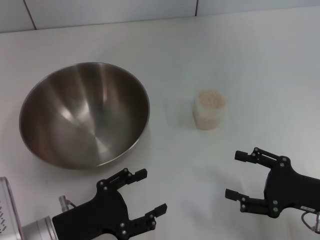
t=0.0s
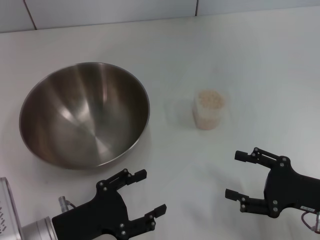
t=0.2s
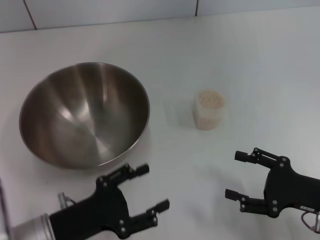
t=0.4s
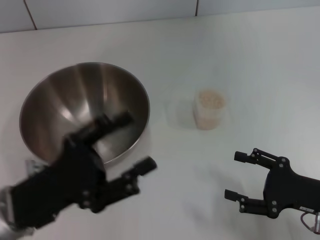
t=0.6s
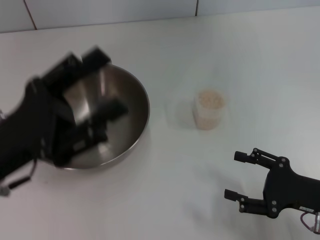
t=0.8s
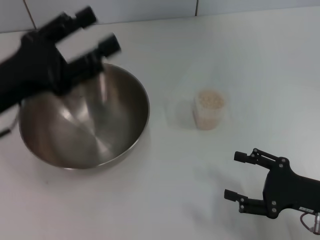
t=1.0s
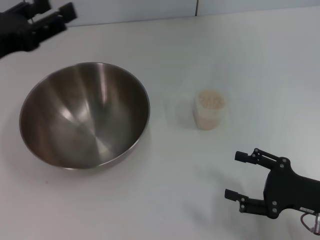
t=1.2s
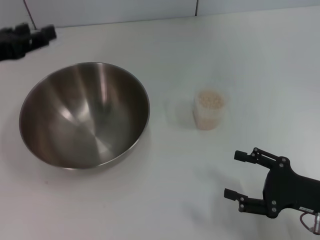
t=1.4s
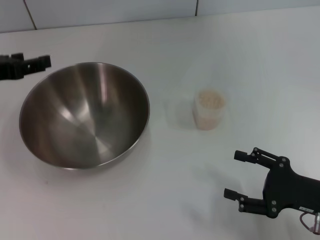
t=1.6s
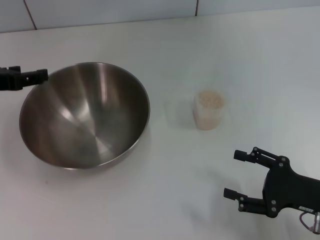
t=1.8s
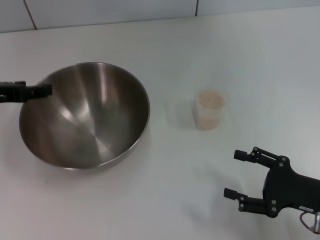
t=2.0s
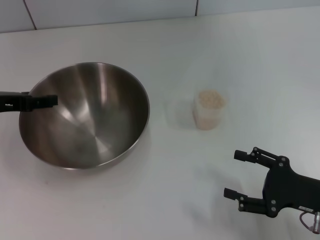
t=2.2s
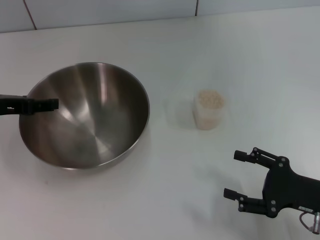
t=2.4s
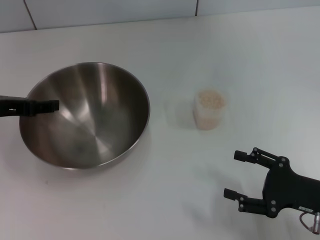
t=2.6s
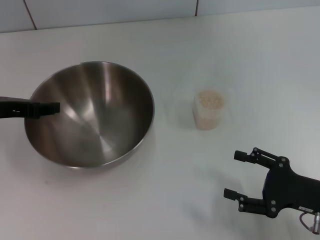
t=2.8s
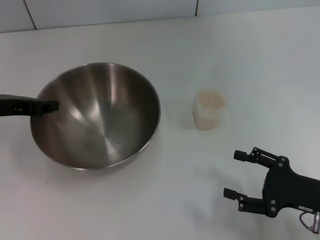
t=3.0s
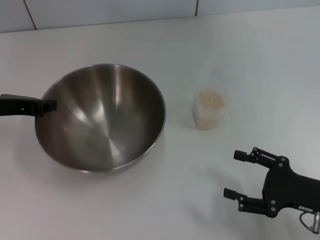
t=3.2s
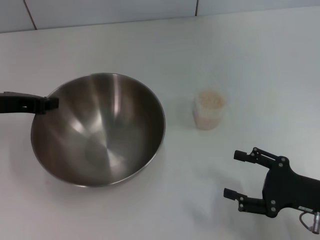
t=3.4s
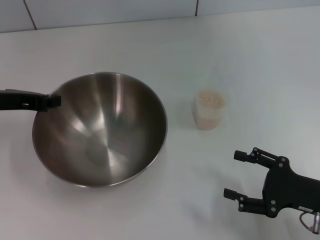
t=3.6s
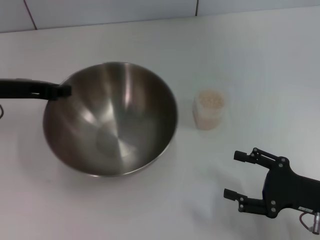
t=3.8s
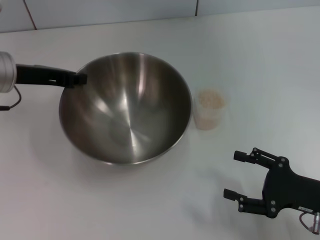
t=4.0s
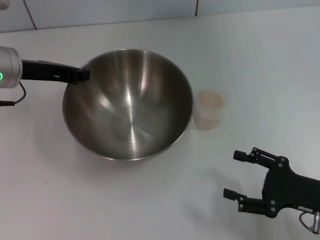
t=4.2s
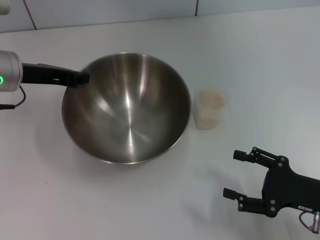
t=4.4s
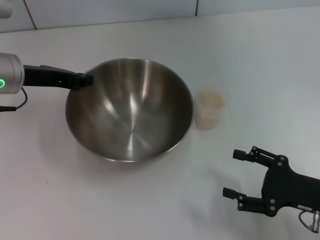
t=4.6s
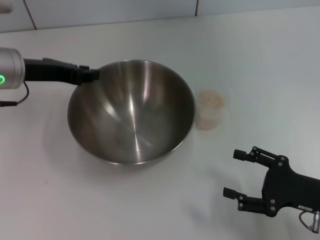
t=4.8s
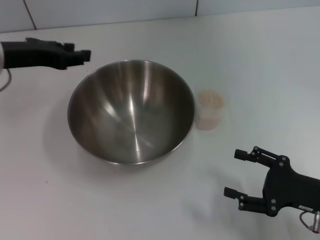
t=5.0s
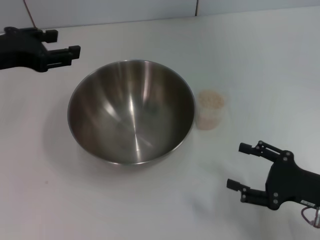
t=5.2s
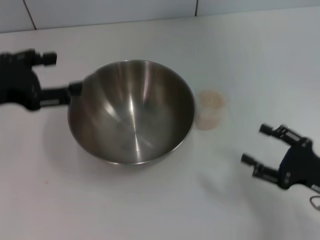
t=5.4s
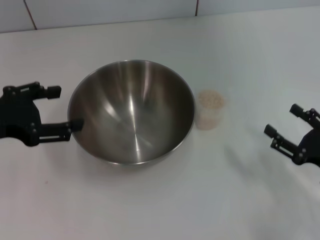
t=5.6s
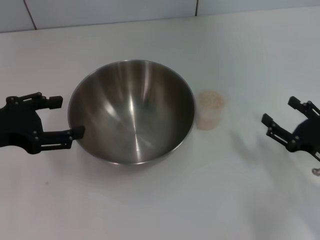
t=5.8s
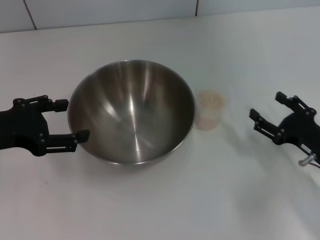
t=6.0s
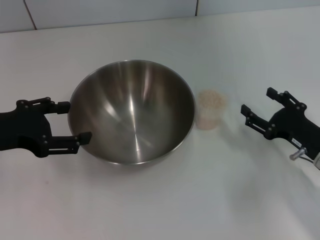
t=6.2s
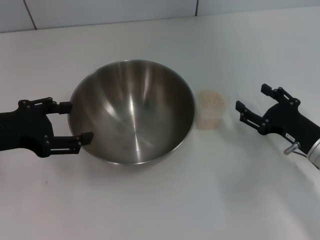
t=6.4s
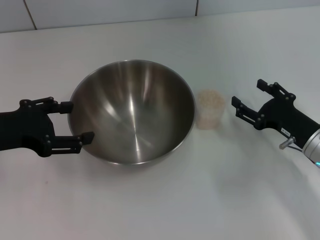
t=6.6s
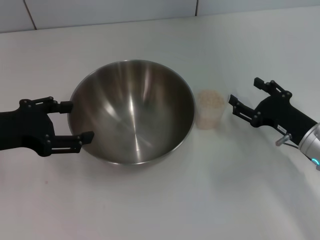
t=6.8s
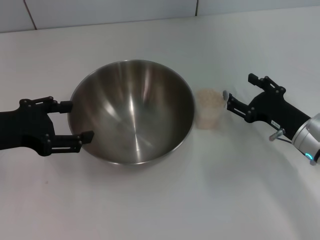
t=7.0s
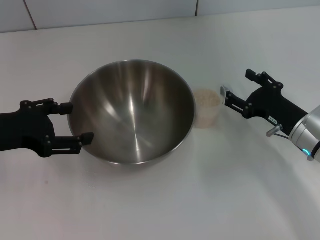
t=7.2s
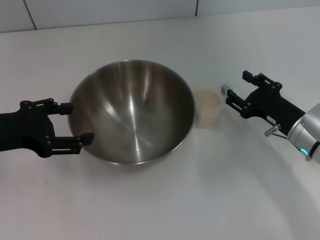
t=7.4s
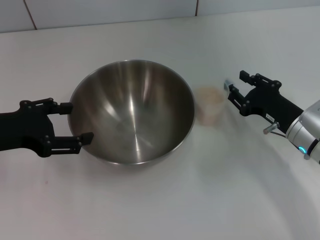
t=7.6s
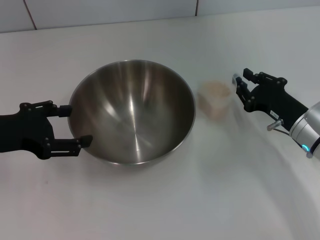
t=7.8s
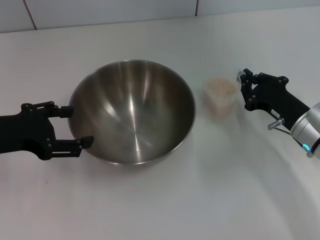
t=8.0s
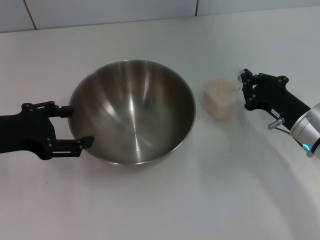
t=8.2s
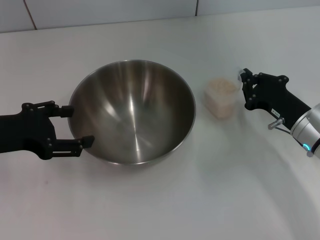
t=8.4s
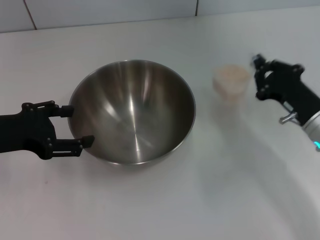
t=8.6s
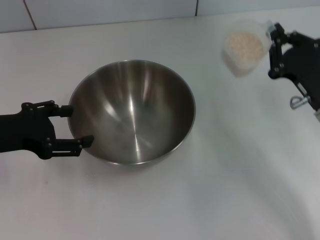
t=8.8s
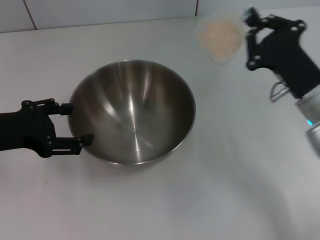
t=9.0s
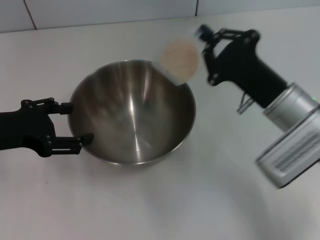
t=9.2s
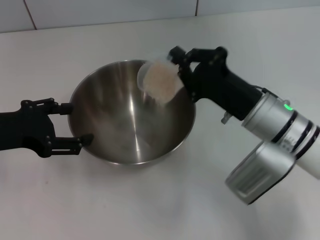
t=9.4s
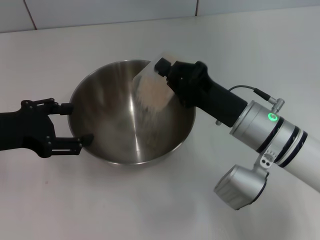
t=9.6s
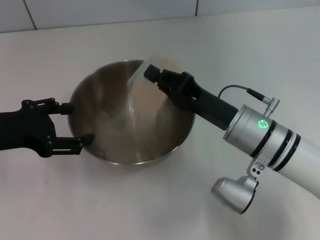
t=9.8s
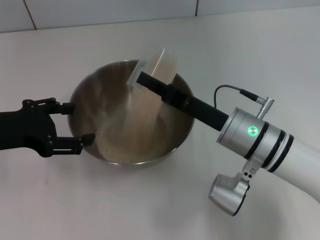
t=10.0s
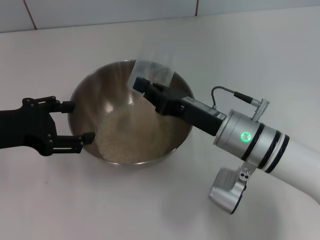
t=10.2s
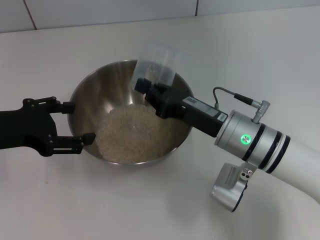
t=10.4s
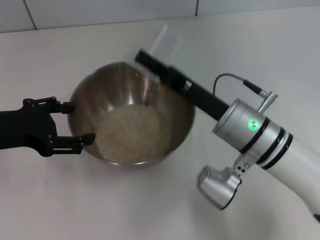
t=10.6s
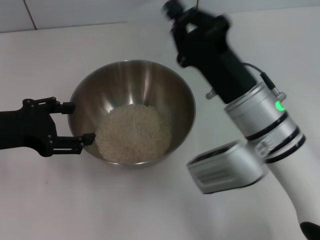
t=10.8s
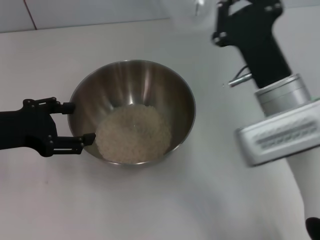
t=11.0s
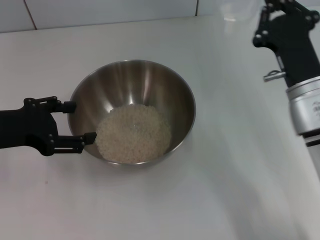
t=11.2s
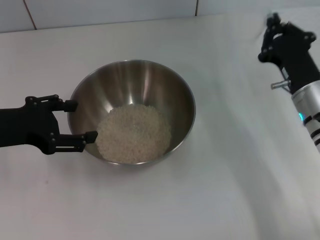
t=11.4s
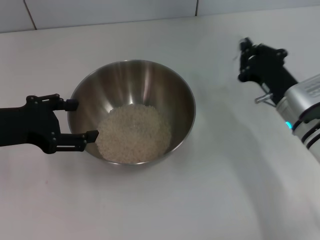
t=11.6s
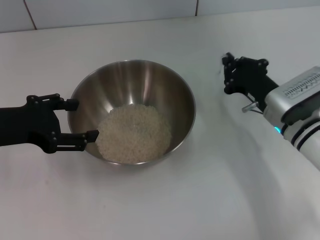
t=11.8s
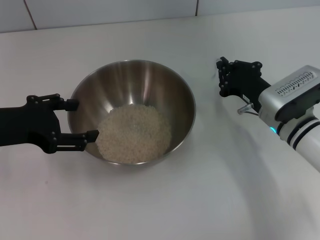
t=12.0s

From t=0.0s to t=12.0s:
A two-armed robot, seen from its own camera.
Task of the whole recording: Place the bowl in the middle of the table with one hand and pour the rice from the grain cup into it with the other hand.
Step, from t=0.0s to t=3.4s: Pick up the bowl with the left gripper.
Step, from t=3.8s to t=5.2s: Place the bowl in the center of view with the left gripper.
Step, from t=5.4s to t=8.6s: Pick up the cup with rice in it with the right gripper.
Step, from t=8.8s to t=10.8s: Pour the rice from the cup into the bowl with the right gripper.
From t=0.0s to t=1.6s: The left gripper goes some 25 cm upward, forward and to the left.
From t=1.6s to t=3.0s: The left gripper closes up.
From t=3.0s to t=4.4s: The left gripper changes place by approximately 5 cm, and closes its fingers.
From t=4.4s to t=6.0s: The left gripper is displaced backward by some 10 cm, and opens. Meanwhile the right gripper changes place by some 5 cm.
From t=6.0s to t=7.6s: The right gripper heads forward, covering some 5 cm.
From t=7.6s to t=9.0s: The right gripper is displaced upward by some 5 cm, and closes.
From t=9.0s to t=10.4s: The right gripper shifts some 10 cm to the left.
From t=10.4s to t=12.0s: The right gripper travels to the right by some 10 cm.

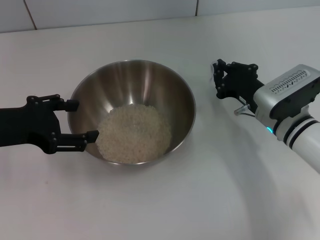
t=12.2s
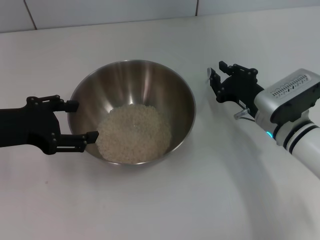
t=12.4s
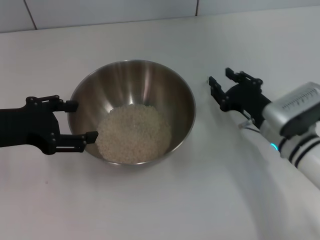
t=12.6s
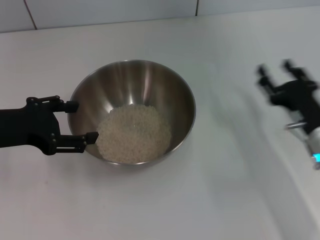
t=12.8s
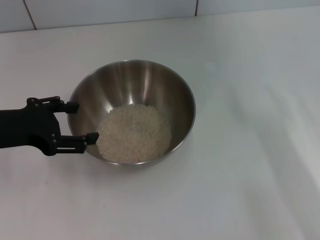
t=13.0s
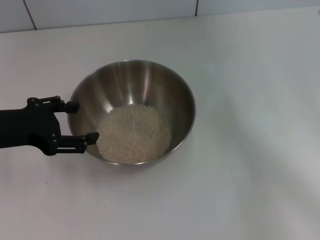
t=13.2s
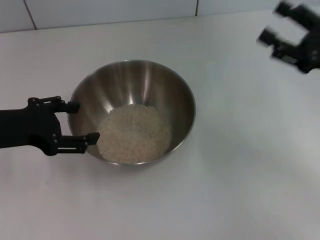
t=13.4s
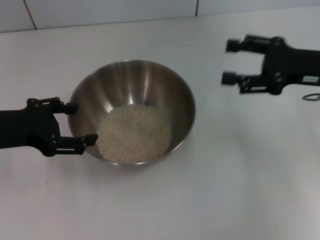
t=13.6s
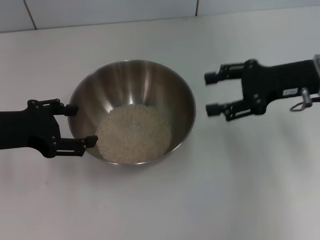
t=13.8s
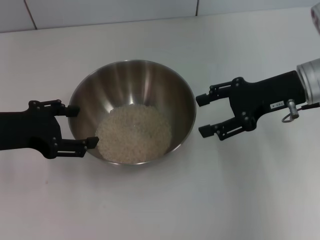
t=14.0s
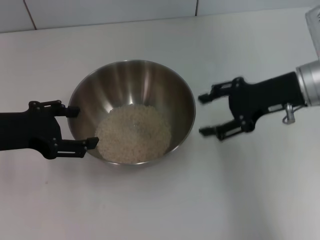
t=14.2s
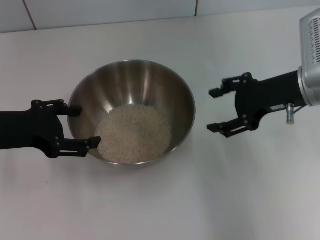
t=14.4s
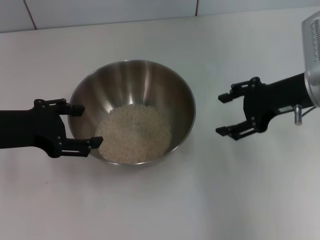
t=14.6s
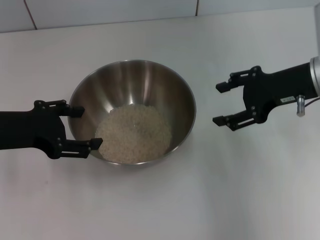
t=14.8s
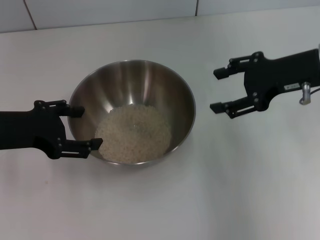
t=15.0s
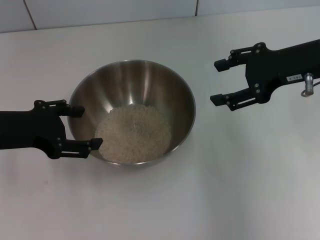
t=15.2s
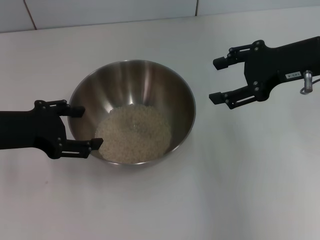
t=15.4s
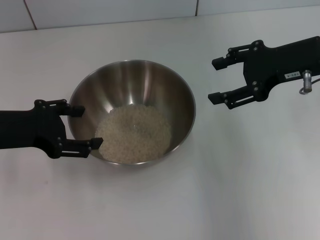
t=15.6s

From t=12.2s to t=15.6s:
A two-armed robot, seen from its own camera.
Task of the whole recording: Place the bowl in the middle of the table with one hand and pour the rice from the grain cup into it with the other hand.
From t=12.2s to t=13.8s: The right gripper heads upward and to the right, covering approximately 15 cm, and opens up.
From t=13.8s to t=15.6s: The right gripper travels upward by some 5 cm.

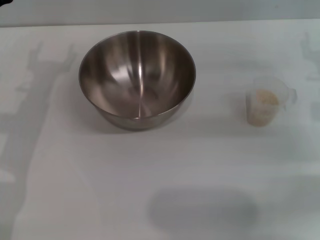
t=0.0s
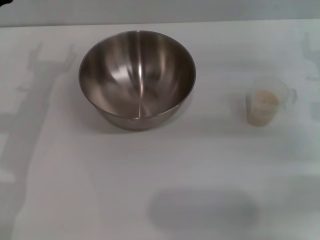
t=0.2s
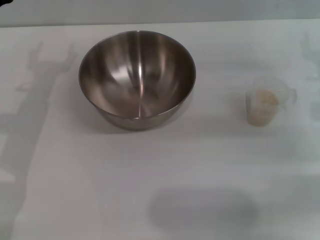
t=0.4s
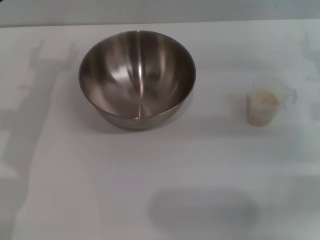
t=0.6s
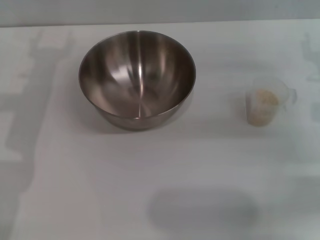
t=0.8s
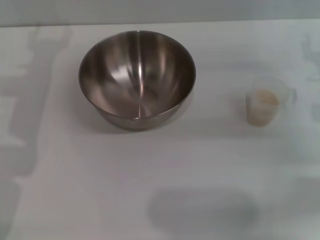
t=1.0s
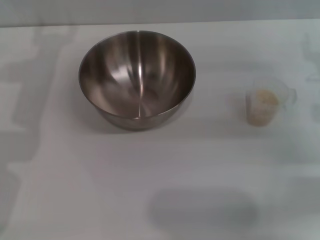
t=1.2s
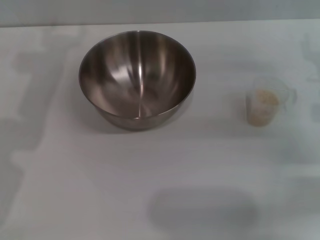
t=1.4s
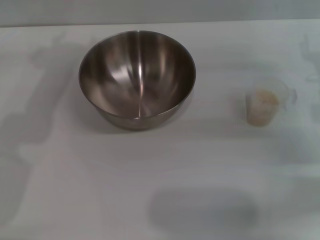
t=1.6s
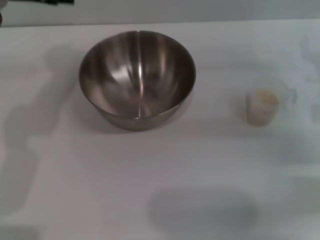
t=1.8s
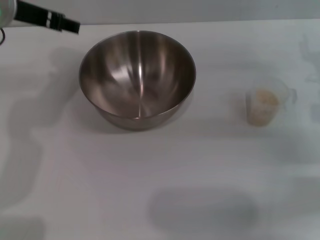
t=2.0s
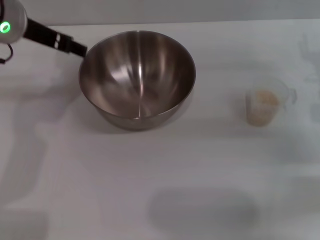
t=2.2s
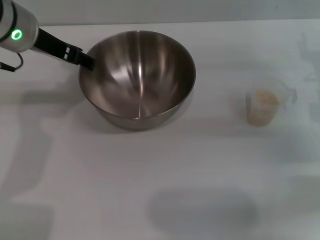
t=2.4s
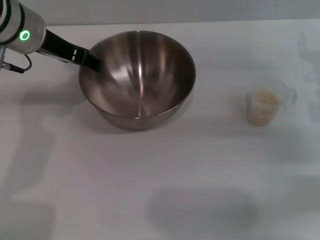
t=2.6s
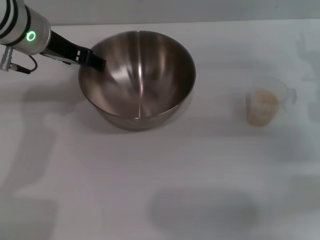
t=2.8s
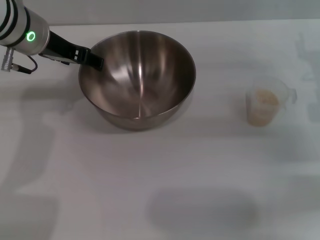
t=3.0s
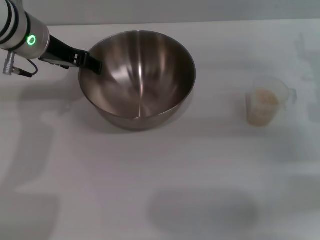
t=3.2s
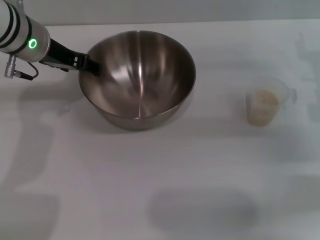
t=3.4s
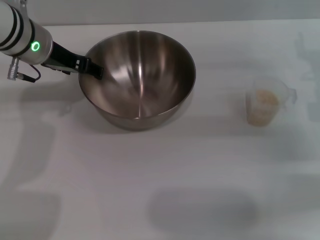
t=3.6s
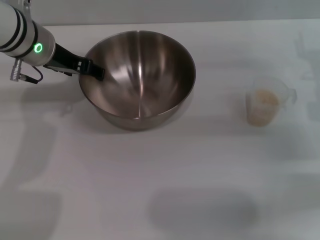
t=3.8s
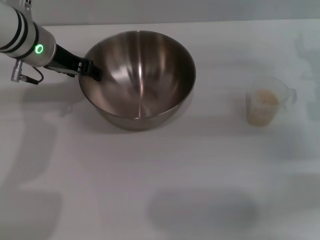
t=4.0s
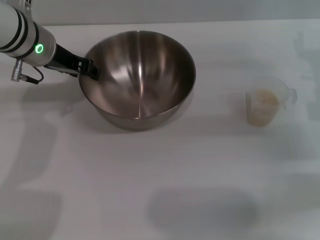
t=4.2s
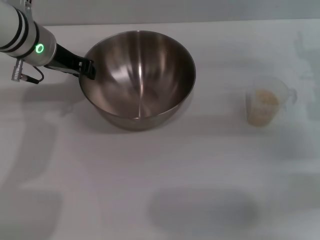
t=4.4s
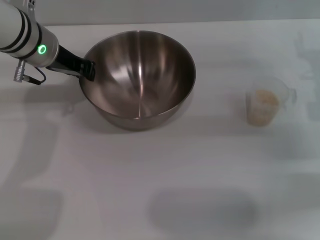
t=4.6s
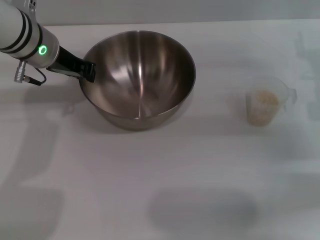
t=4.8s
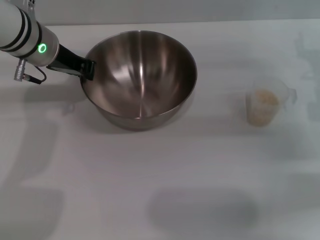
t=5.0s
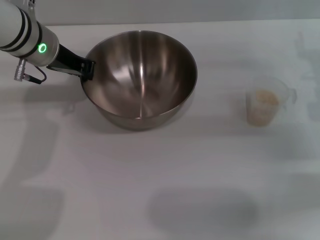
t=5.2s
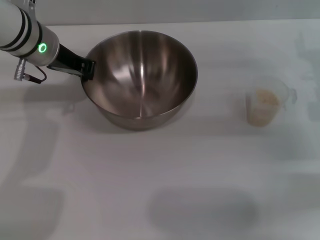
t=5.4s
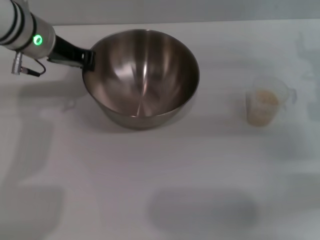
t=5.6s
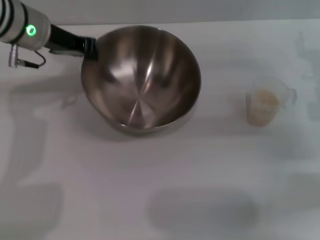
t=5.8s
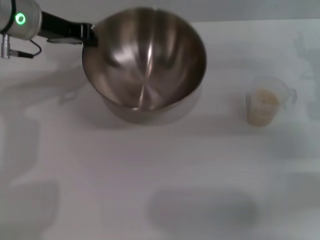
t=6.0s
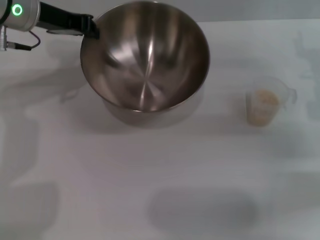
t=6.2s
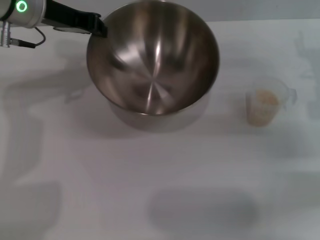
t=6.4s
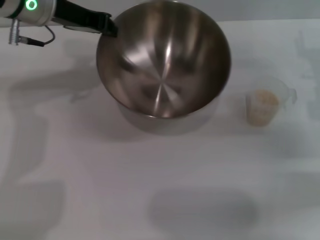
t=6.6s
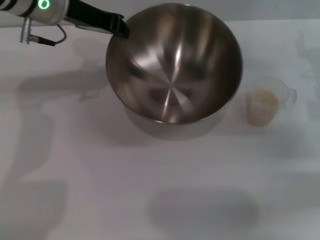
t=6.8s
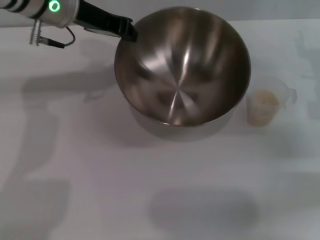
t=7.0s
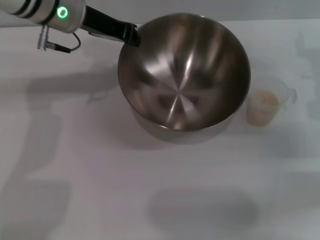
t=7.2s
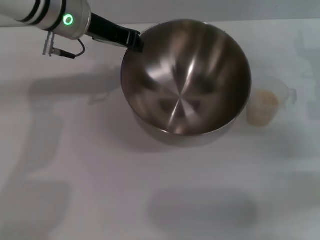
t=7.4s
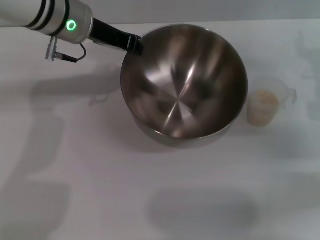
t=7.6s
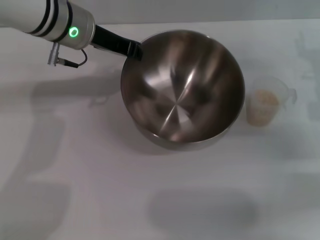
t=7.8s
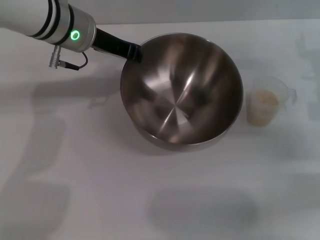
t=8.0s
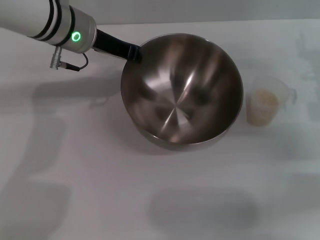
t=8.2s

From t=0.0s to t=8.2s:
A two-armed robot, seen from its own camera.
Task of the whole recording: Place the bowl in the middle of the table with one hand and pour the rice from the grain cup into it with the other hand.
Step, from t=0.0s to t=5.8s: Pick up the bowl with the left gripper.
From t=0.0s to t=1.6s: The left gripper goes about 15 cm upward.
From t=1.6s to t=3.2s: The left gripper moves downward, about 5 cm.
From t=3.2s to t=5.0s: The left gripper closes up.
From t=5.0s to t=6.6s: The left gripper goes approximately 5 cm upward.
From t=6.6s to t=8.2s: The left gripper changes place by approximately 5 cm.
